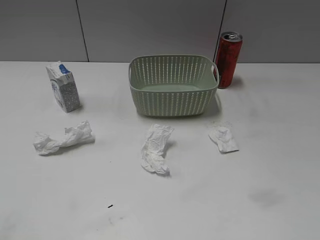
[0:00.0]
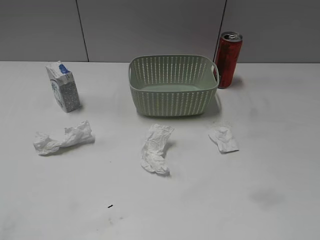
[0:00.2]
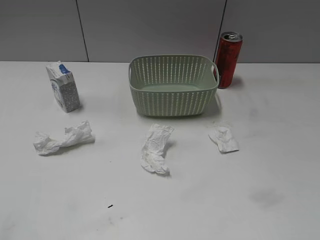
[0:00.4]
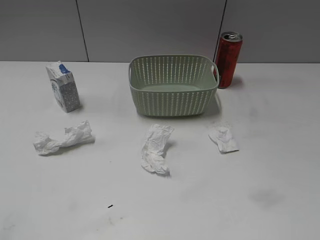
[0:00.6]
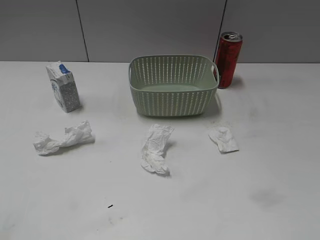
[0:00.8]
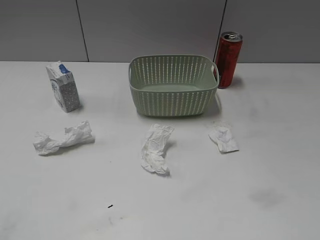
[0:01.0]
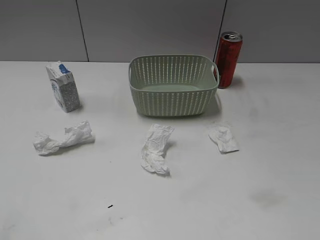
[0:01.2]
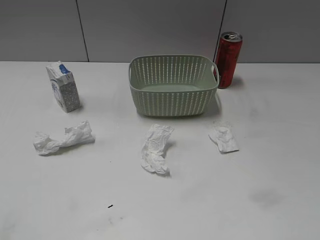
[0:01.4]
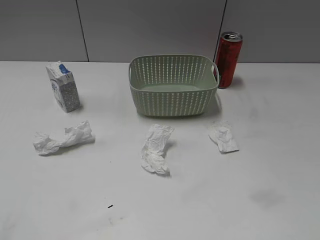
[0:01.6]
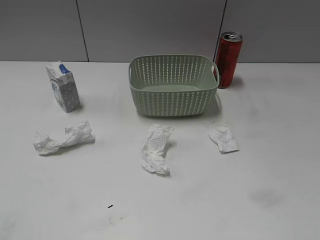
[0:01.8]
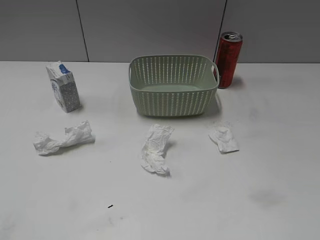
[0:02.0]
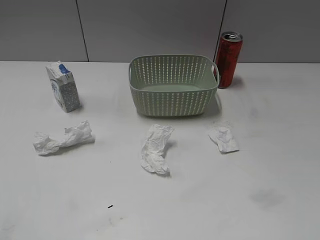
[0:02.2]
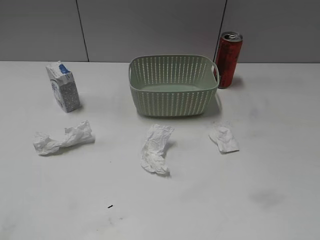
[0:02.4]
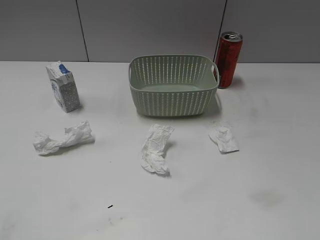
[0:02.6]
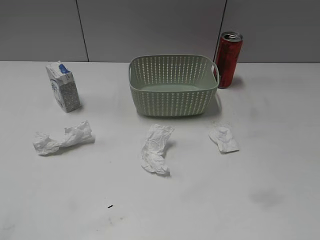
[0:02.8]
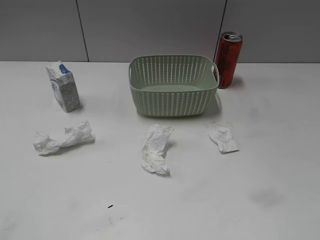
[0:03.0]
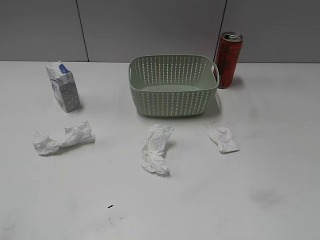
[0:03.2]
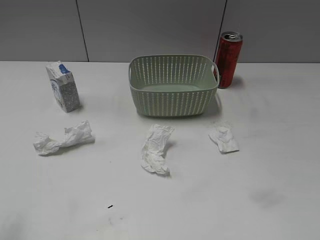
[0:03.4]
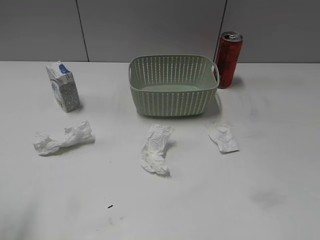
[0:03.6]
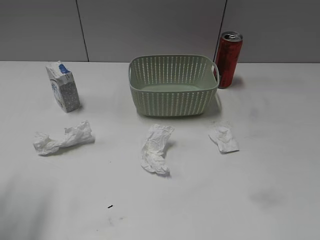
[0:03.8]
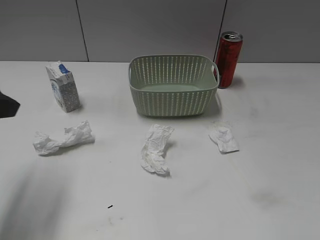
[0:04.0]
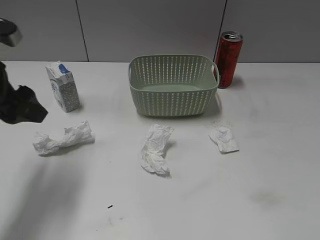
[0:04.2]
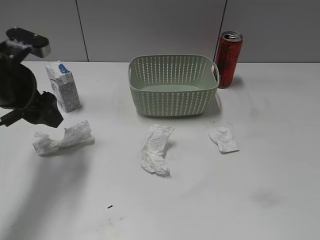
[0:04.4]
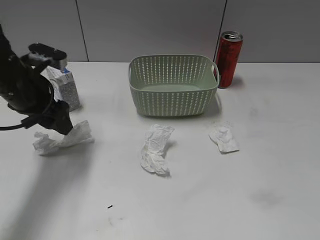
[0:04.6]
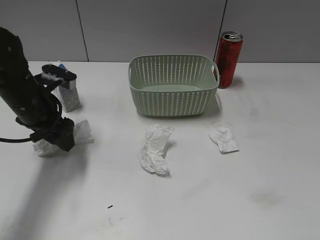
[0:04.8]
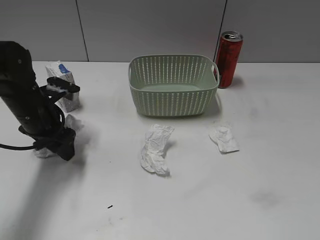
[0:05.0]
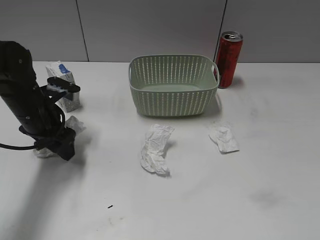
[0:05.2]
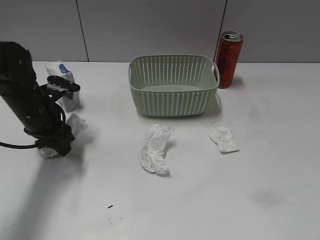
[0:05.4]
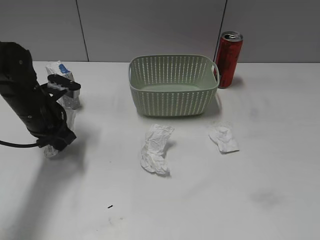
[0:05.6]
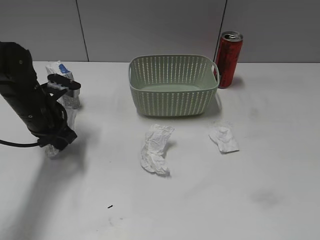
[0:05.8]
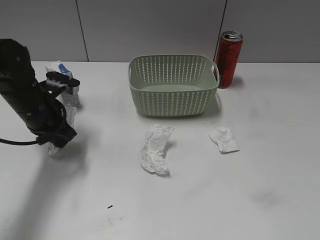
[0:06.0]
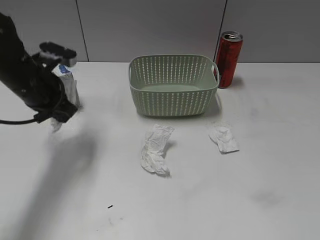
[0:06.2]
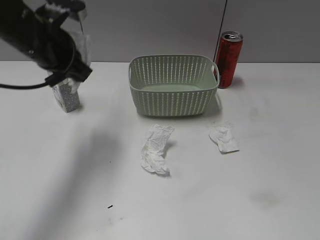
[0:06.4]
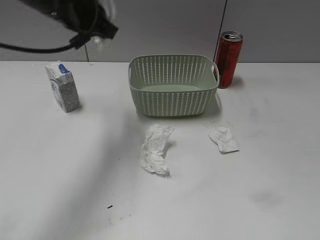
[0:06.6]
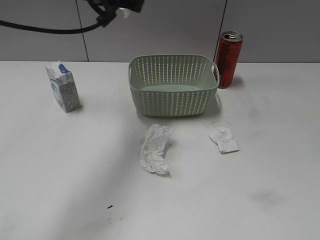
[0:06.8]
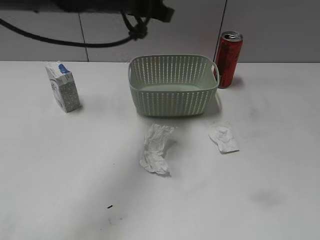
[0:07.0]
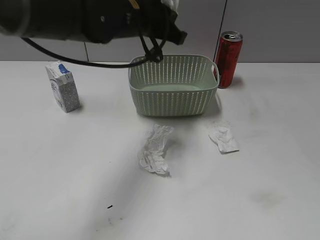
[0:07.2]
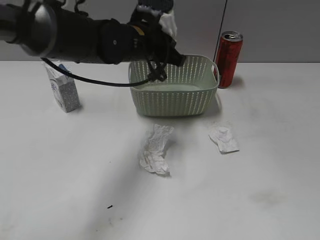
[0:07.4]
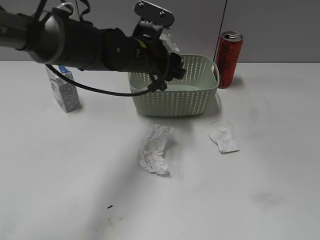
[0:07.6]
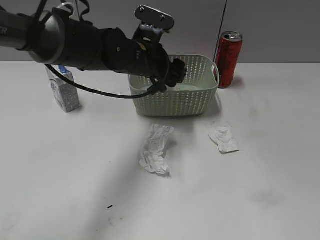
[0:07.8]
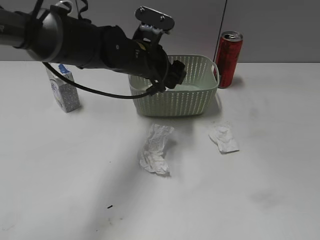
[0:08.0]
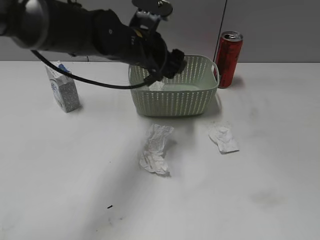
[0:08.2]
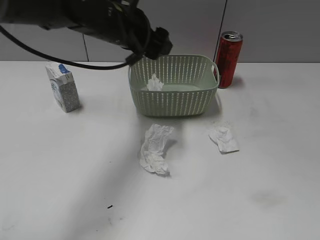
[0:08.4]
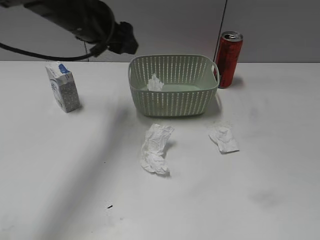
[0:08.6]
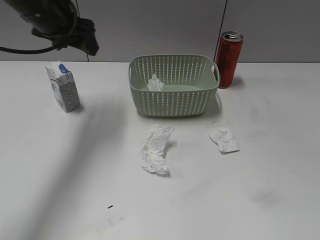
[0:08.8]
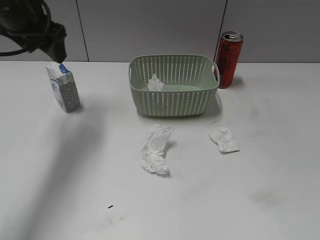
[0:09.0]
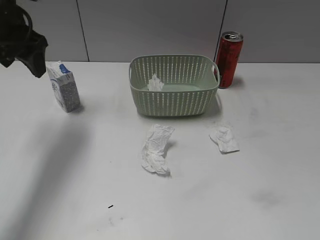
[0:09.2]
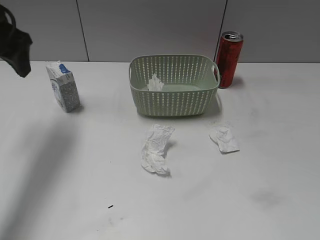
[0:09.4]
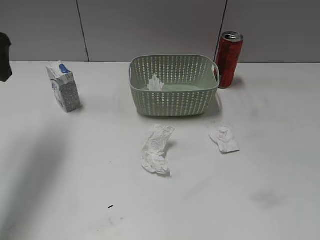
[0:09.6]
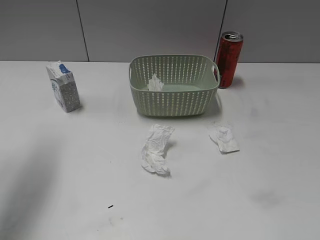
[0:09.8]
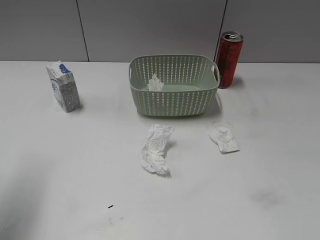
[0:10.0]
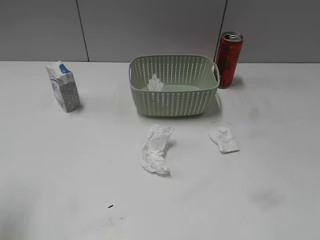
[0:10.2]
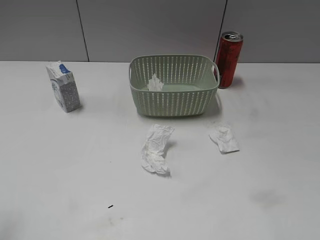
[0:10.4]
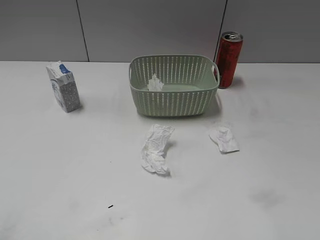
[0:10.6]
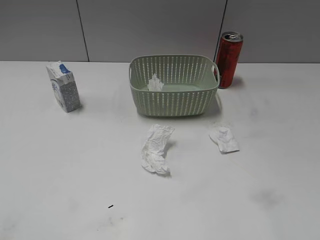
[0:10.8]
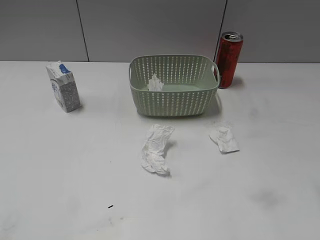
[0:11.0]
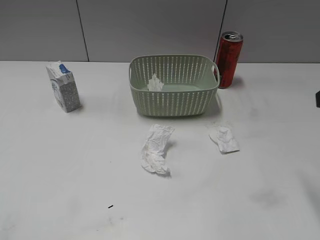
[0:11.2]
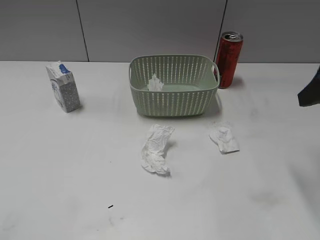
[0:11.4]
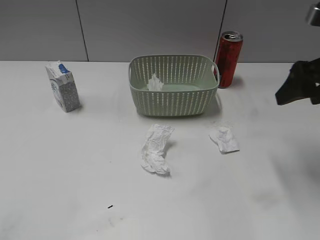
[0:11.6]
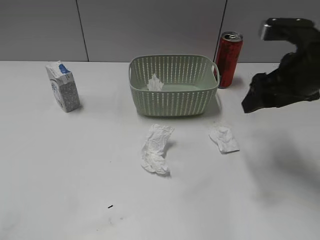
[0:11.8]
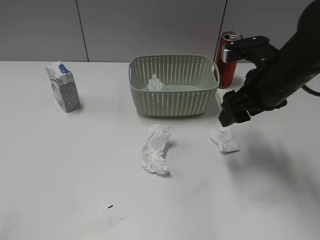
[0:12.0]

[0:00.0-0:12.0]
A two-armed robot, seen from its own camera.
Step, 0:04.0 to 0:05.8: Grasp the waste paper with left gripper.
Step, 0:06.0 to 0:08.2: Place the waste paper in the basket with left gripper.
0:03.0 to 0:04.4: The left gripper shifts about 30 cm forward.
0:04.4 to 0:06.0: The left gripper goes some 10 cm downward, and closes.
0:06.0 to 0:07.6: The left gripper moves to the right, some 20 cm, moves approximately 20 cm upward and comes back, and opens its fingers.
0:07.6 to 0:09.0: The left gripper is displaced to the left and upward by approximately 20 cm.
0:09.0 to 0:10.4: The left gripper travels backward by some 25 cm.
0:10.4 to 0:12.0: The right gripper is displaced forward, to the left and downward by some 30 cm.

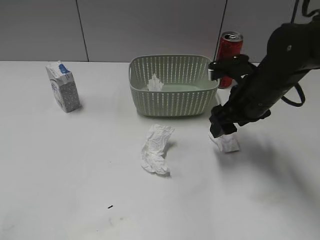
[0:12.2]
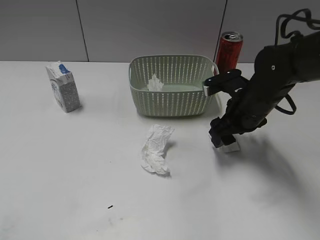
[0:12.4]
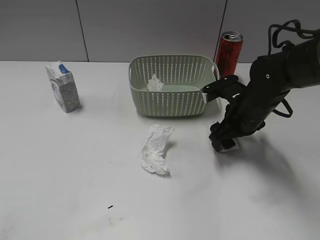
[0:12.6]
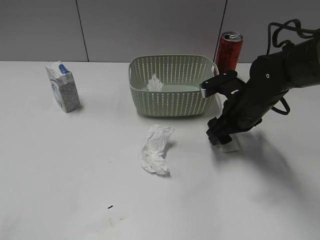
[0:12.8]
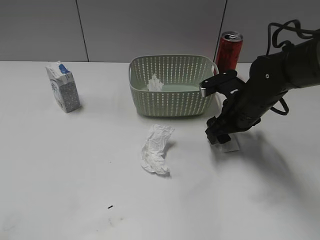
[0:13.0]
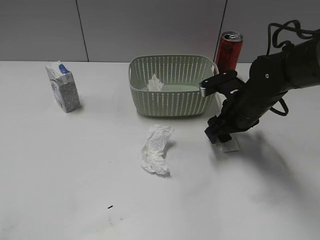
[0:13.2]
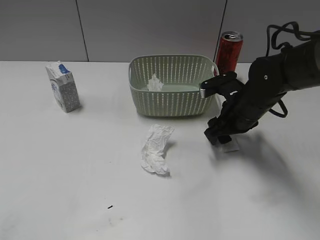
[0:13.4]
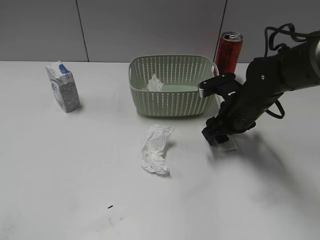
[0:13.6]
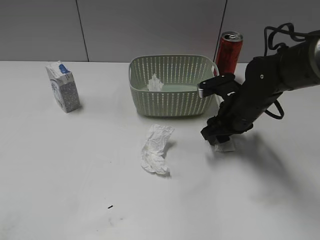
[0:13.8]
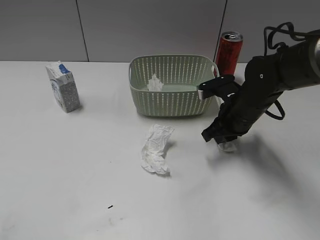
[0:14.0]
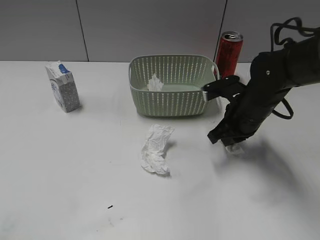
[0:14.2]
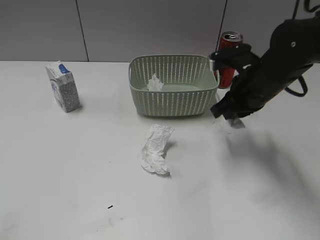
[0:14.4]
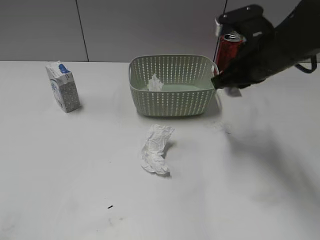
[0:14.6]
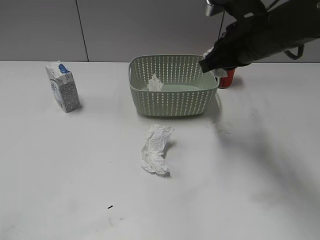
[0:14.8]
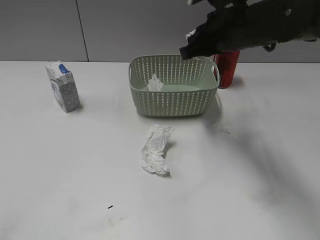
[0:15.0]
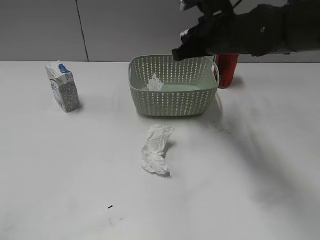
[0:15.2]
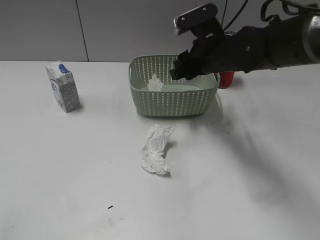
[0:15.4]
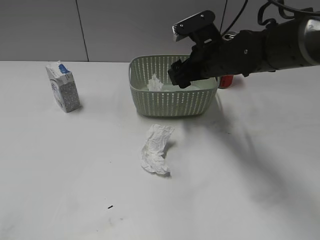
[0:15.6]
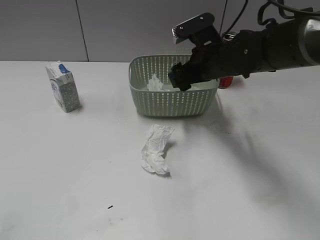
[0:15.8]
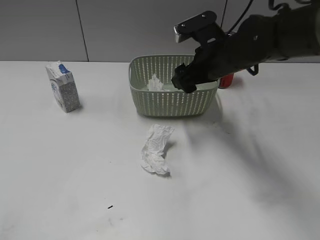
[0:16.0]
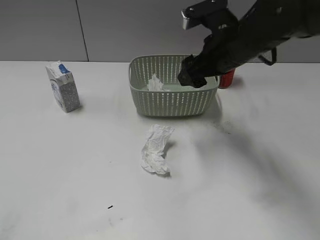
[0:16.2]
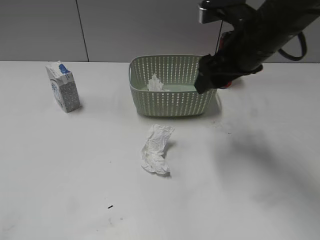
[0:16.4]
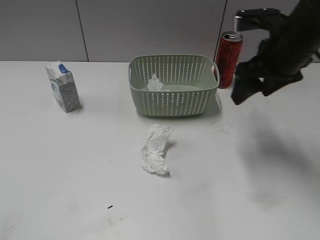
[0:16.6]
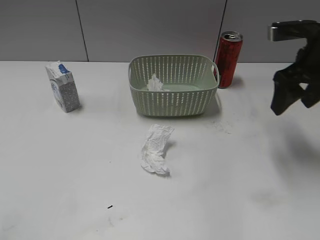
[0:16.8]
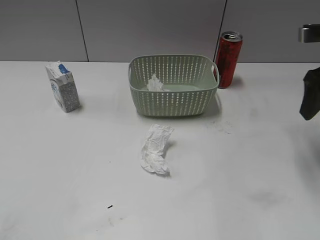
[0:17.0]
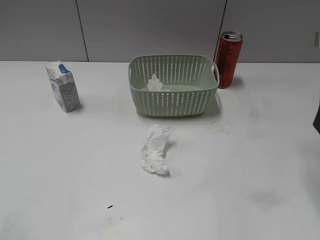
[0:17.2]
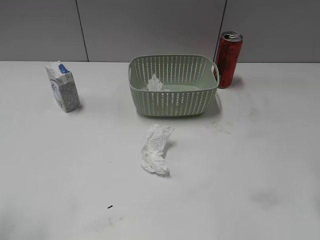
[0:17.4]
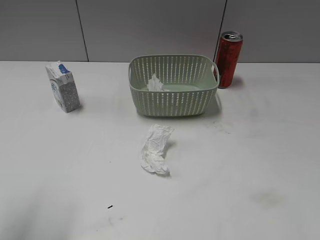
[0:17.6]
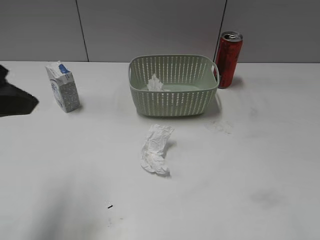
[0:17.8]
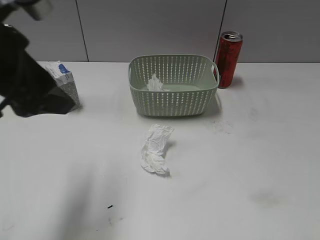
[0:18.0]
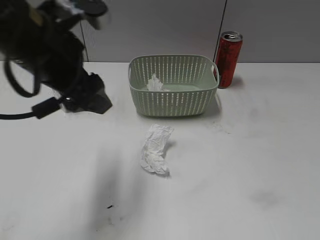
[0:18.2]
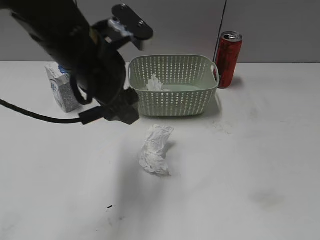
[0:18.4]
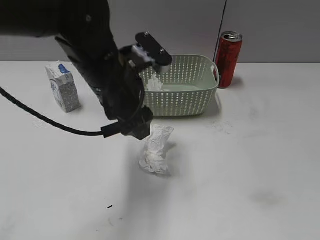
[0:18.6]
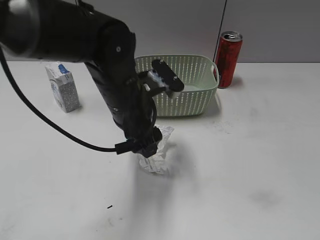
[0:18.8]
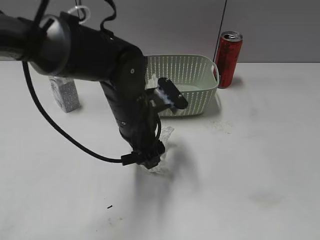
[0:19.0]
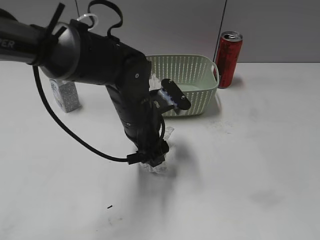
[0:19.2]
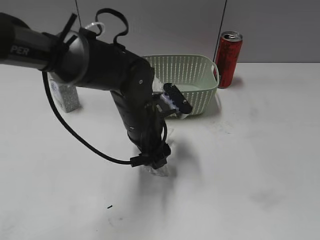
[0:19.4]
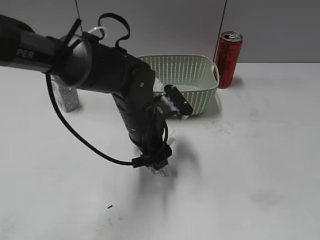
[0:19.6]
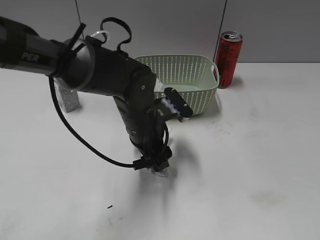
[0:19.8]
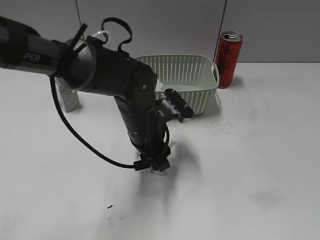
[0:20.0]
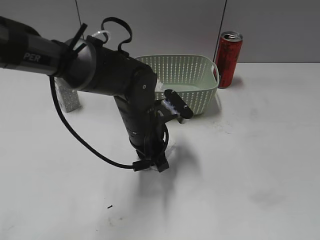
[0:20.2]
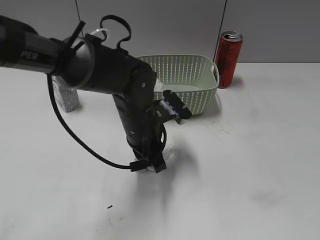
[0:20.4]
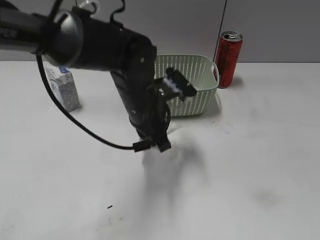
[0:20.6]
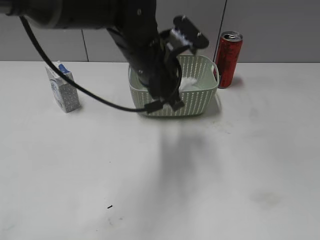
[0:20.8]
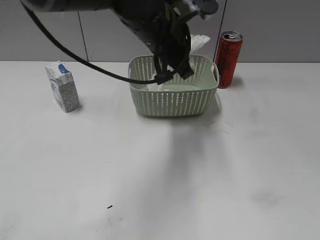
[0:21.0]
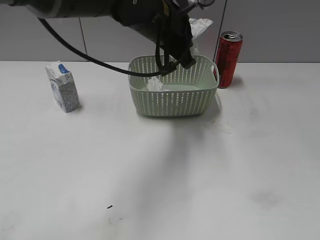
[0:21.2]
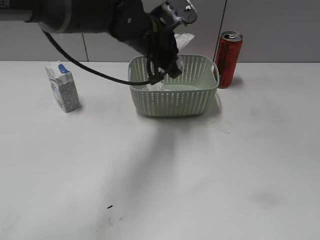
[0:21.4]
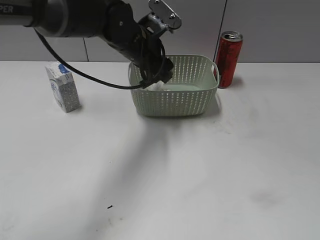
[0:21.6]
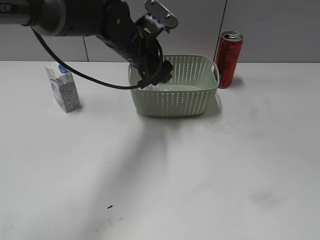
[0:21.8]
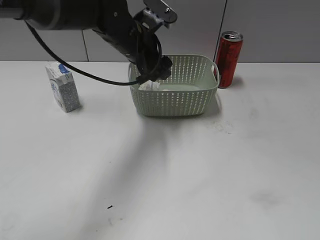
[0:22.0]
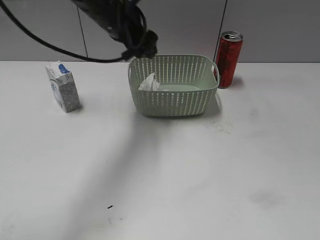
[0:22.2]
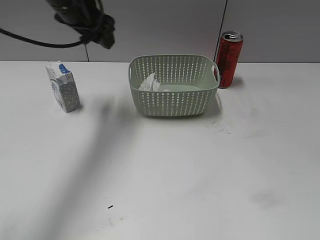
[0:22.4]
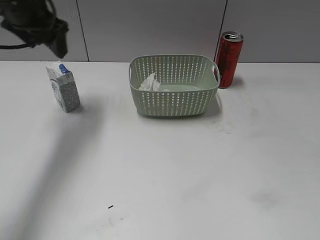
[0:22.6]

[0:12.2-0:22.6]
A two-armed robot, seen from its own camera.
Step, 0:14.2 to 0:15.8: Place the waste paper in the basket with right gripper.
Step, 0:16.0 to 0:20.2: Grasp the waste paper with left gripper.
Step, 0:20.4 to 0:22.0: Place the waste paper in the basket with left gripper.
0:12.2 to 0:13.6: The right gripper is displaced downward by roughly 5 cm.
0:13.6 to 0:15.2: The right gripper shifts roughly 15 cm upward and to the left, and closes.
0:15.2 to 0:16.6: The right gripper heads to the right, covering roughly 10 cm, and opens up.
0:16.6 to 0:18.2: The left gripper moves forward and to the right, about 30 cm; the right gripper shifts roughly 30 cm backward.
0:18.2 to 0:19.6: The left gripper heads downward and to the right, covering about 20 cm.
0:19.6 to 0:21.2: The left gripper shifts about 15 cm upward and forward, and closes up.
0:21.2 to 0:22.6: The left gripper travels to the left by about 20 cm, and opens its fingers.
